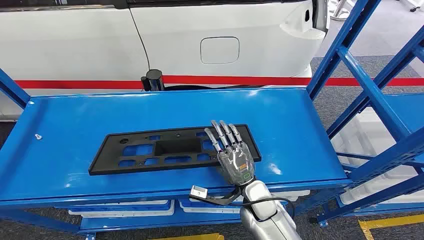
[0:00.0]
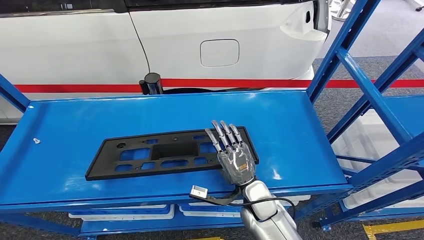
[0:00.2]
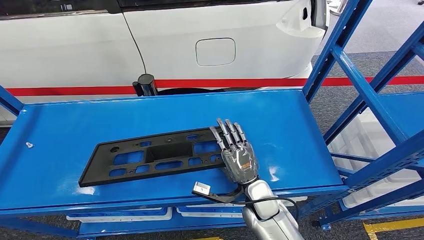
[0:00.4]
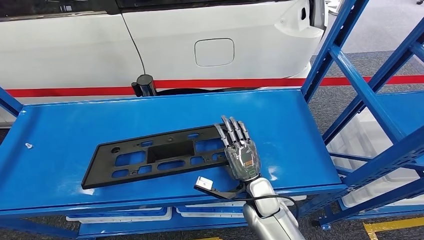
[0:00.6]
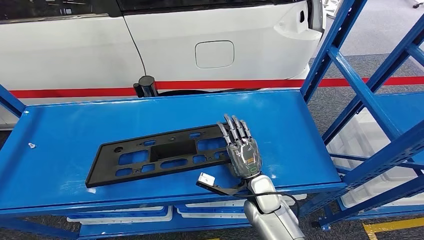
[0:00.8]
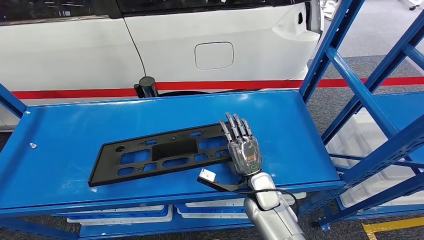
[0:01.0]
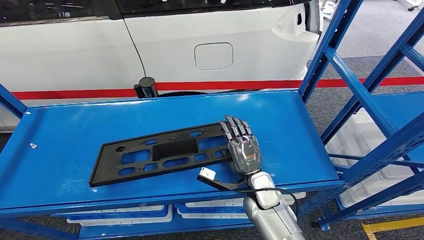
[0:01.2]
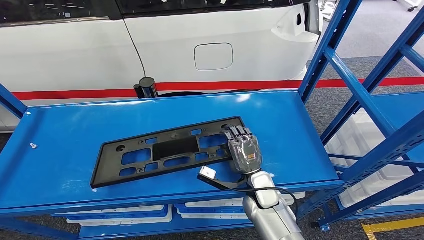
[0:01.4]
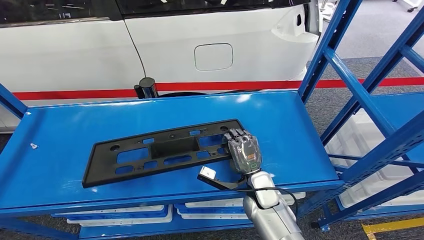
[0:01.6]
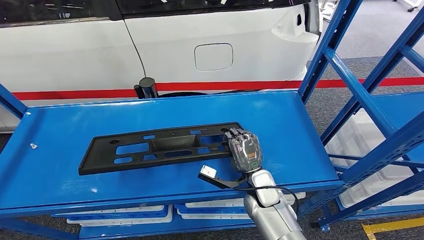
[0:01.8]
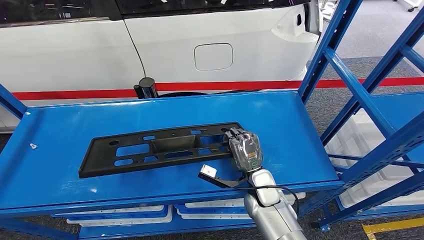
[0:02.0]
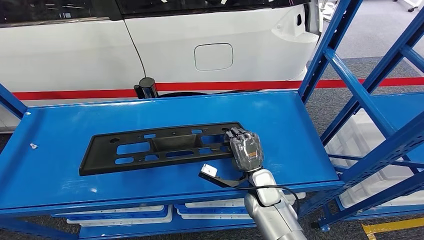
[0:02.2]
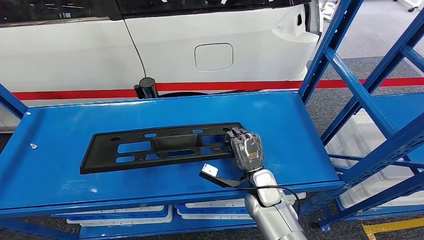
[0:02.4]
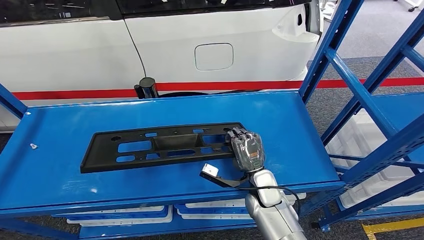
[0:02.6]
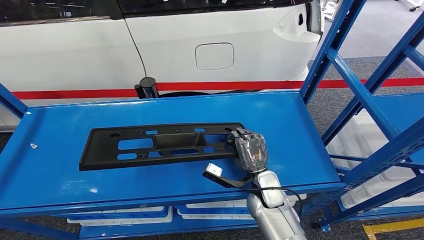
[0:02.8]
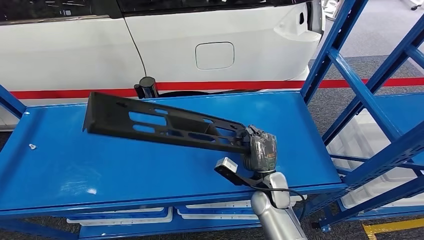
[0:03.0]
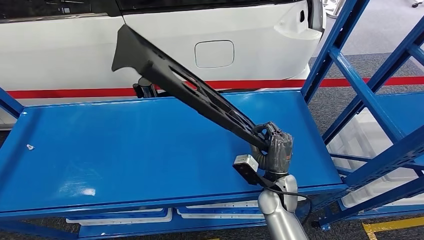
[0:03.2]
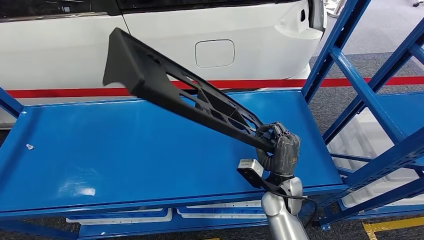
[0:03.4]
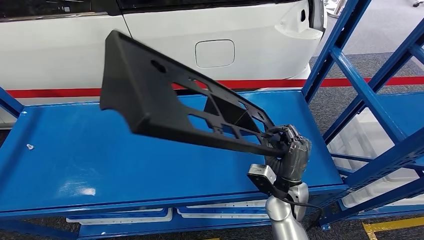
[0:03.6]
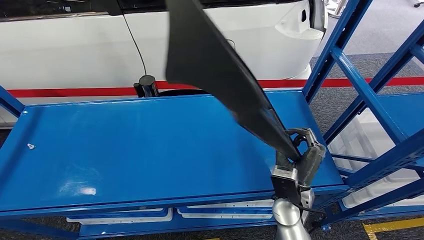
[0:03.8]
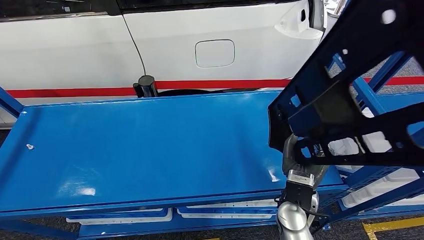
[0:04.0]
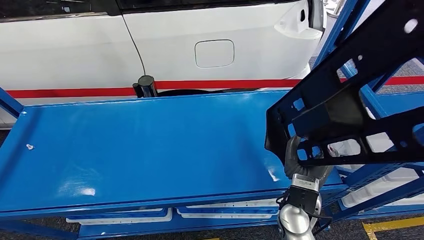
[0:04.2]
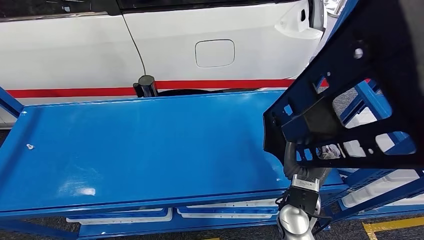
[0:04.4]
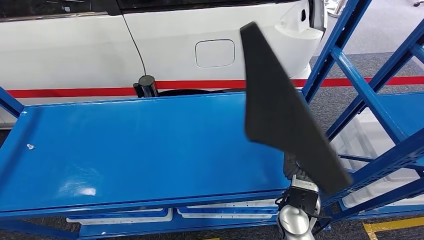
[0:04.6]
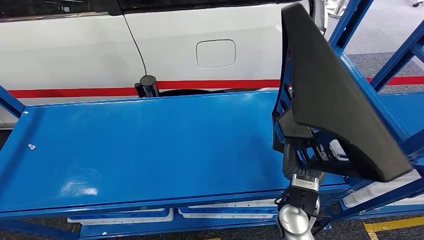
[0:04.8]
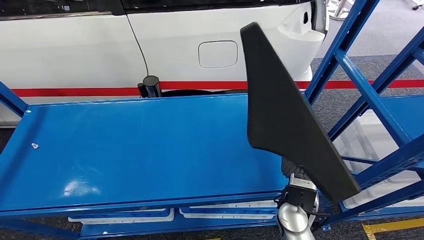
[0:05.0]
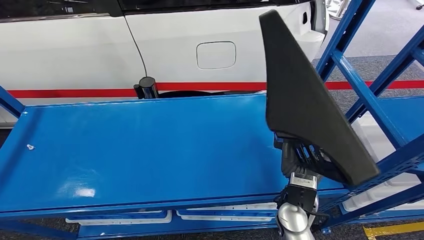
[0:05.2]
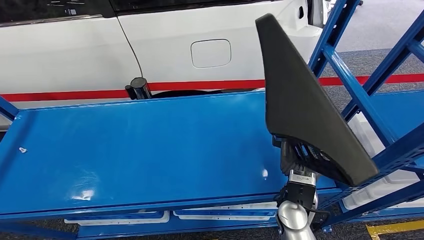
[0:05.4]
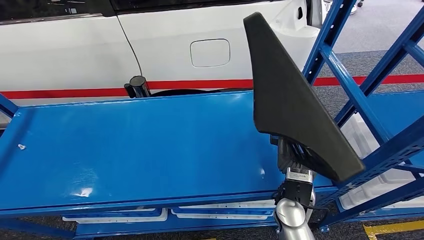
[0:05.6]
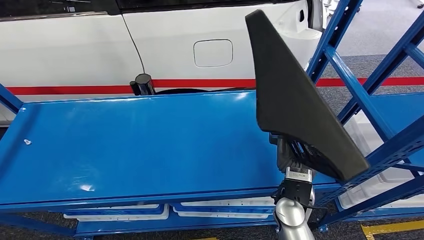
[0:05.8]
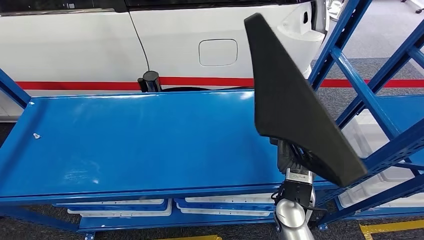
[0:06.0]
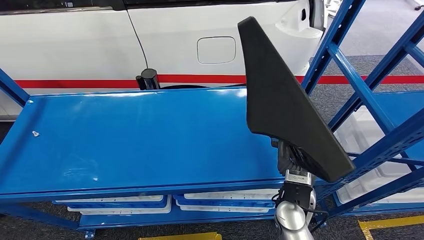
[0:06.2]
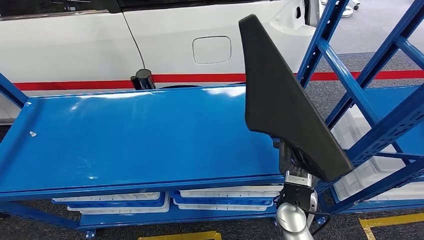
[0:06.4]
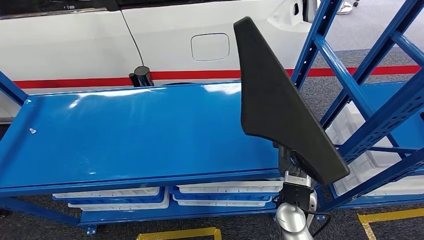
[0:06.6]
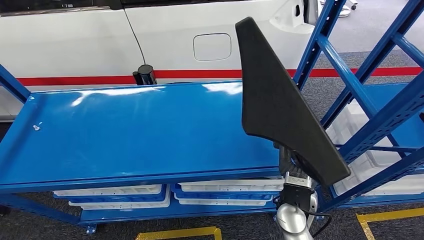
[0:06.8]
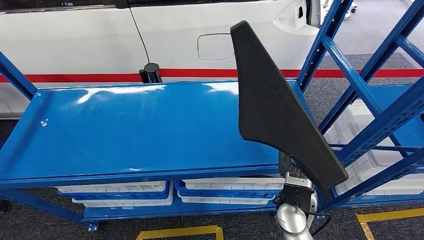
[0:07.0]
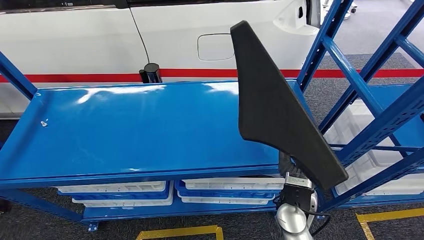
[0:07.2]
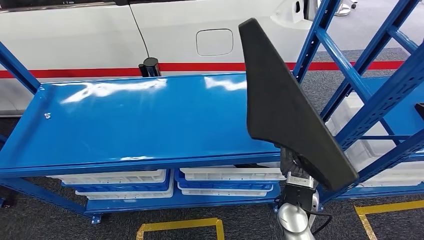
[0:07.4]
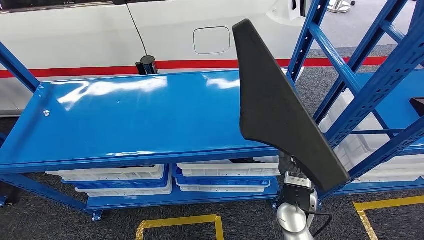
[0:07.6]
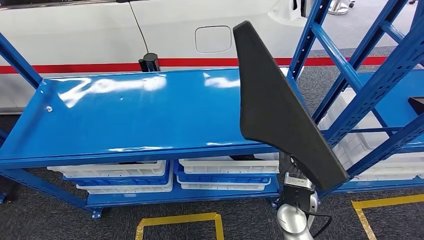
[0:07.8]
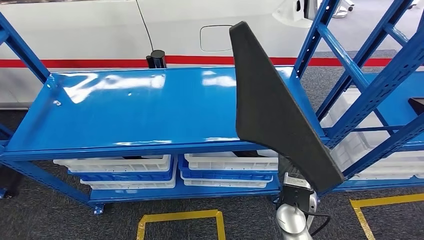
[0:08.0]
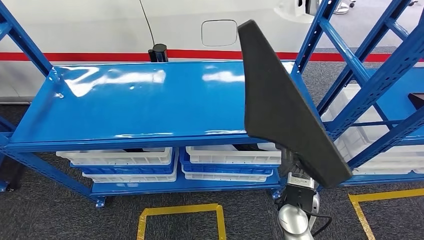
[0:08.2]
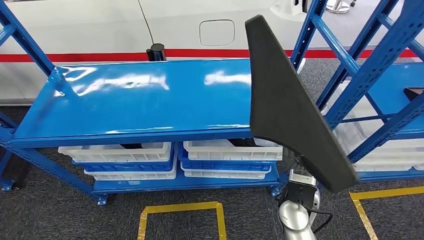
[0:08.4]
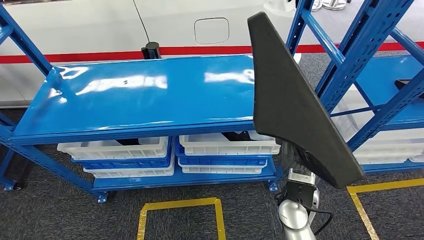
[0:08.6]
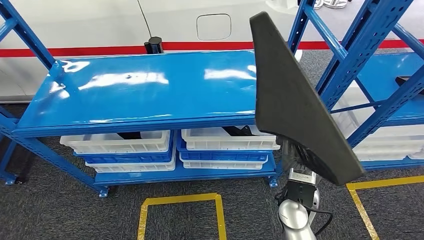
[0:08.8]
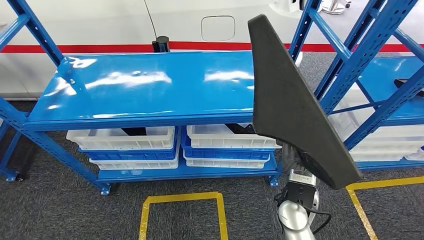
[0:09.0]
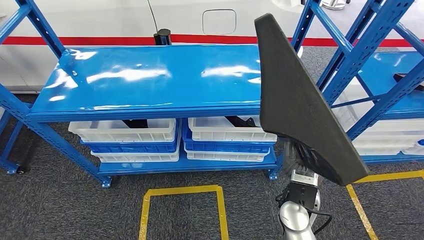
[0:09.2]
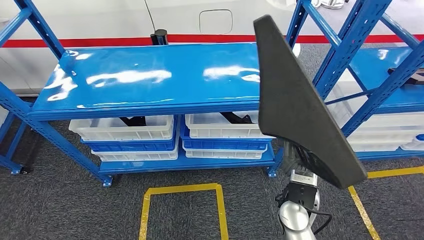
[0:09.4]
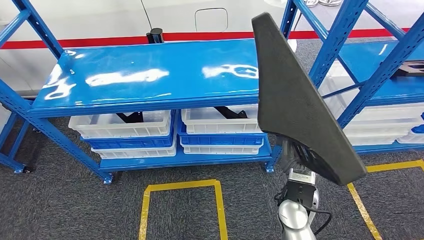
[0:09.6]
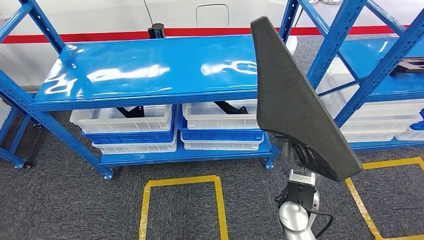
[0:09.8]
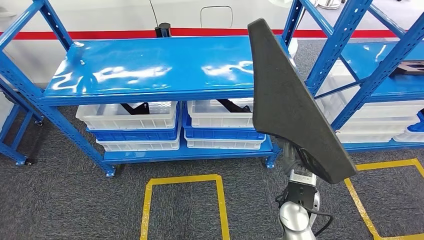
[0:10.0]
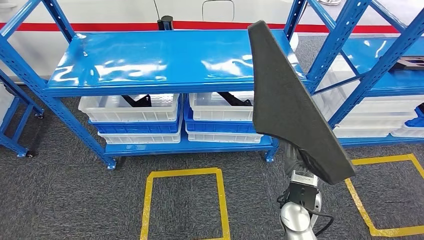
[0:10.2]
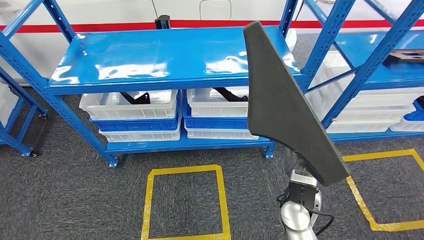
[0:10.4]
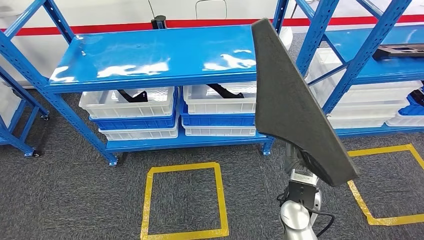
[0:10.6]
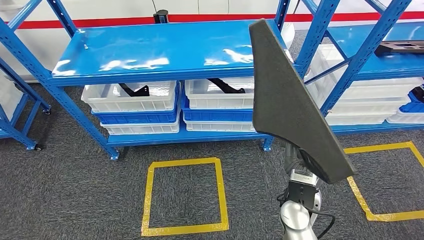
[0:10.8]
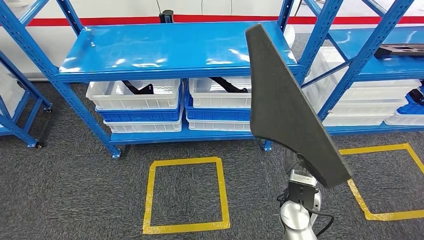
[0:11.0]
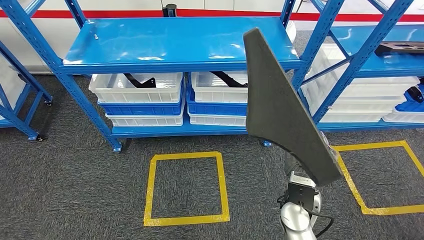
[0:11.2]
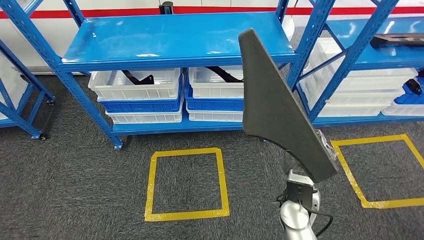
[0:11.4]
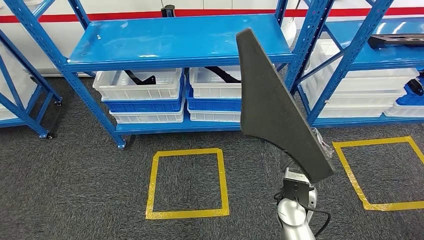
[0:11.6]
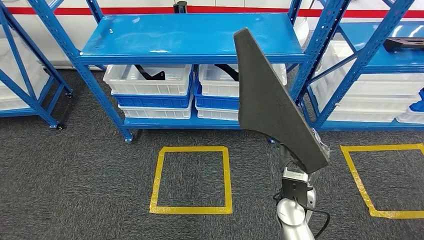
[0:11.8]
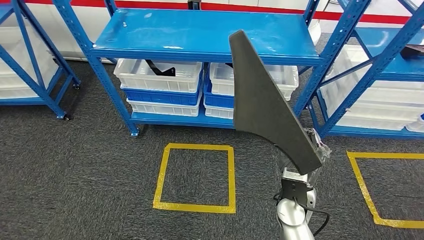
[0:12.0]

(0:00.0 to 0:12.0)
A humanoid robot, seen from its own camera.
Step, 0:00.0 - 0:09.0: Pick up the large material from the shelf.

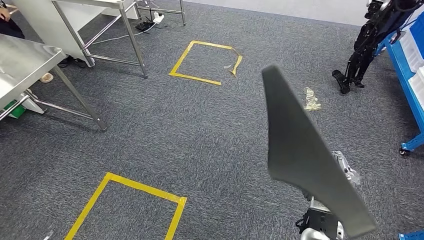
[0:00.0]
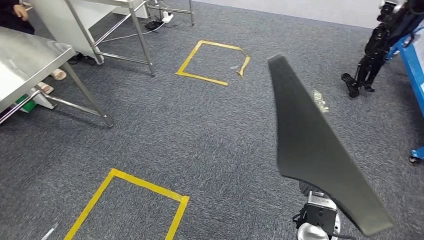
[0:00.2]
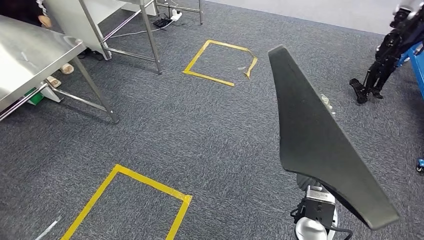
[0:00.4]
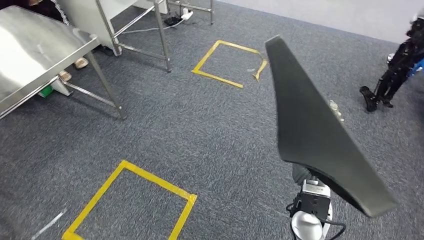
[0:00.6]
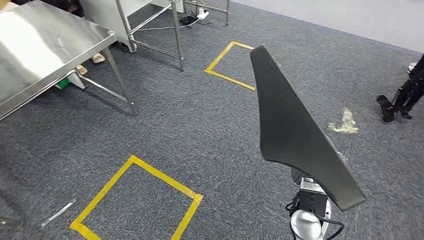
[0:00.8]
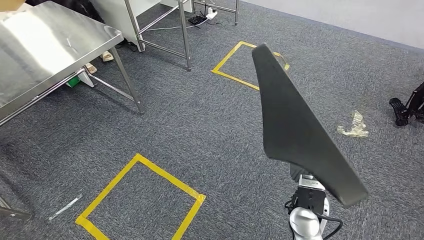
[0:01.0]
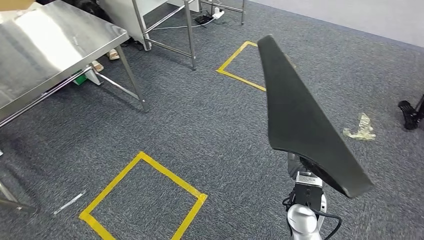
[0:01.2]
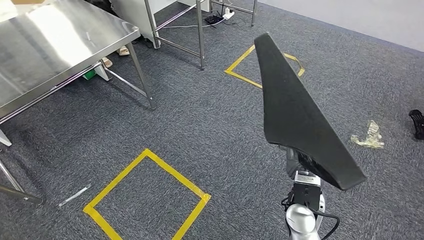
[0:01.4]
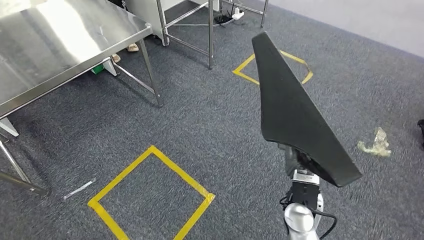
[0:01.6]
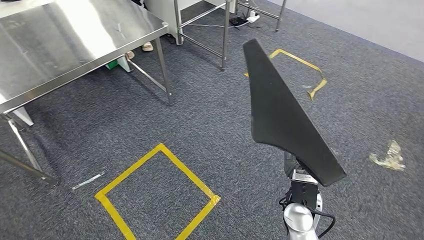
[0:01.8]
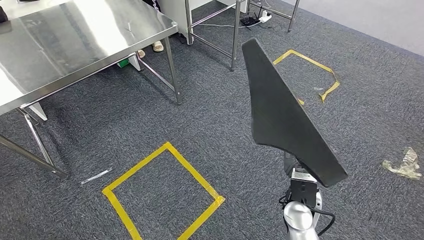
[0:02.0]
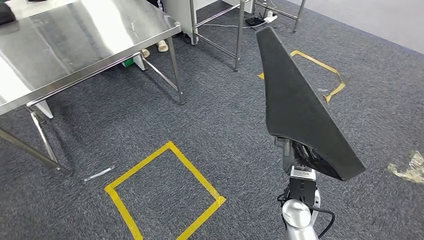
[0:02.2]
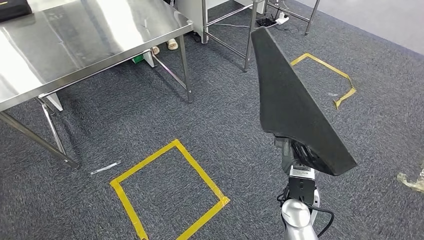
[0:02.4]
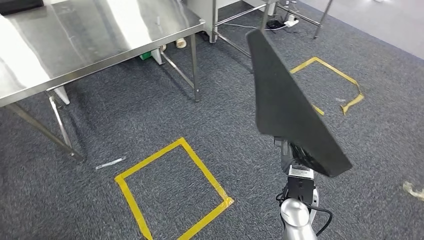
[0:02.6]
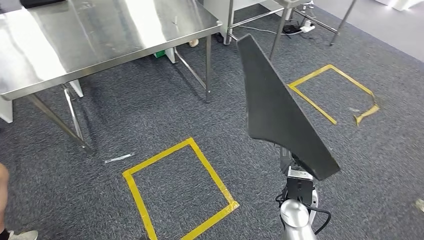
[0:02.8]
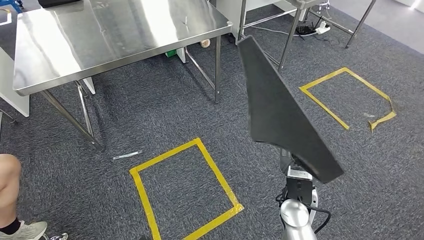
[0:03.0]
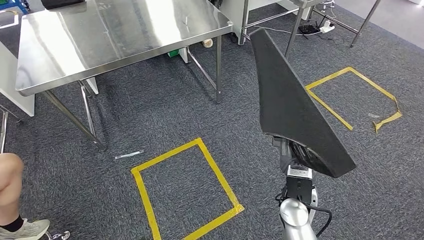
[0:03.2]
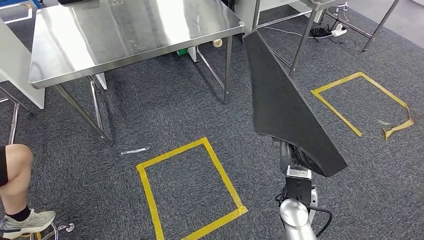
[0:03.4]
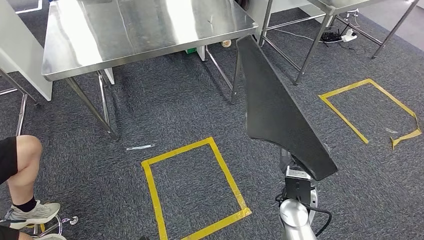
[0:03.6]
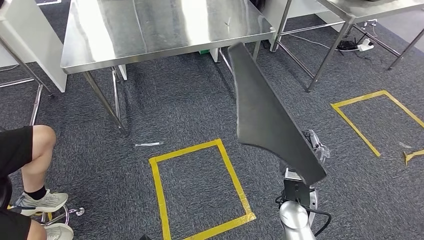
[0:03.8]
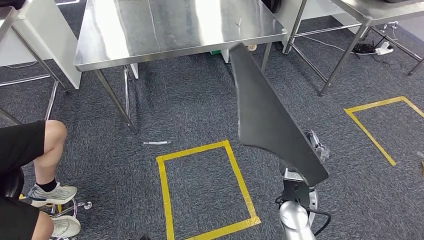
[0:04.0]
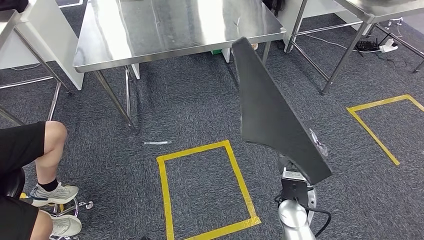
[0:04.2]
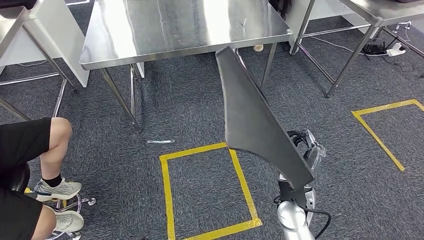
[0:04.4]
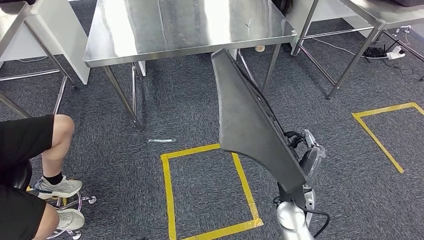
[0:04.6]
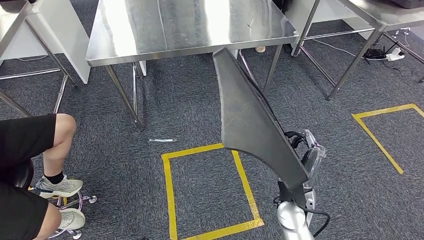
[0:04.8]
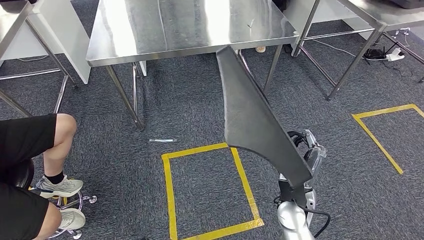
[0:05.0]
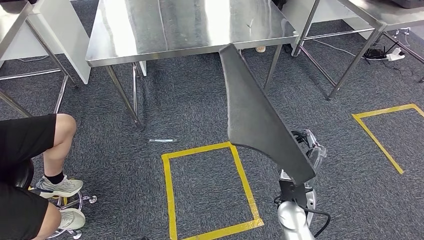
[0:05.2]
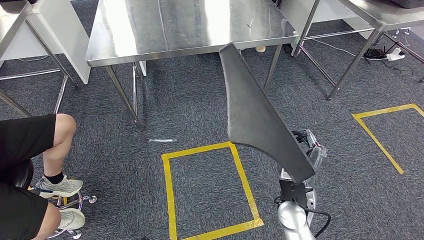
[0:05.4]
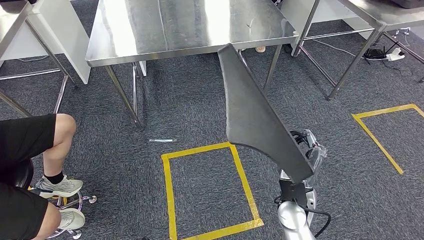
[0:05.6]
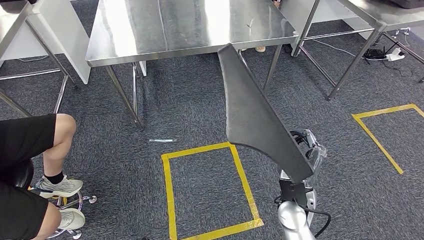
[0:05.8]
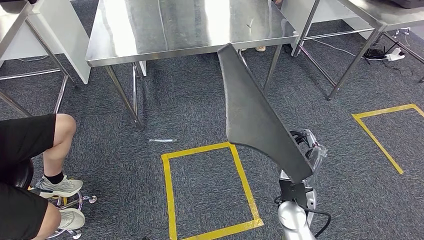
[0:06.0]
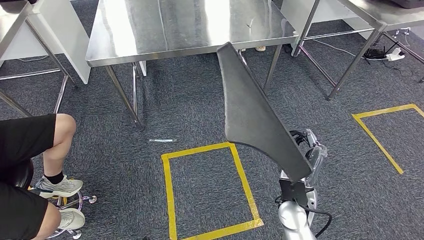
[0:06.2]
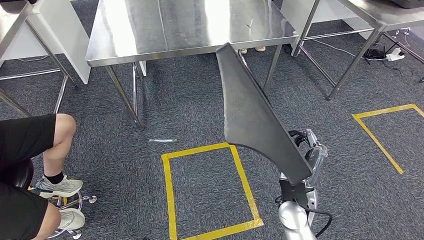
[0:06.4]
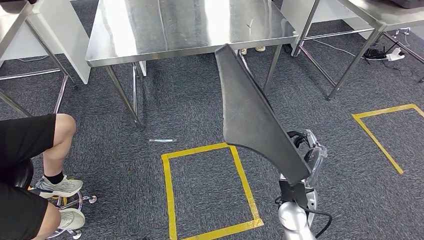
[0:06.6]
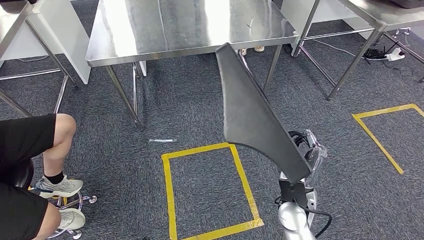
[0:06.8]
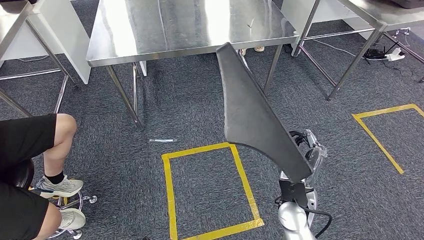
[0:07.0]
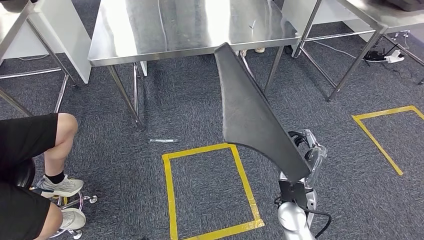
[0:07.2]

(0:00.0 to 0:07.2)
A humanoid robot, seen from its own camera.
Step, 0:00.0 - 0:03.4: Move the large material to the workbench.
0:04.4 - 0:07.2: The two hands keep their place.
